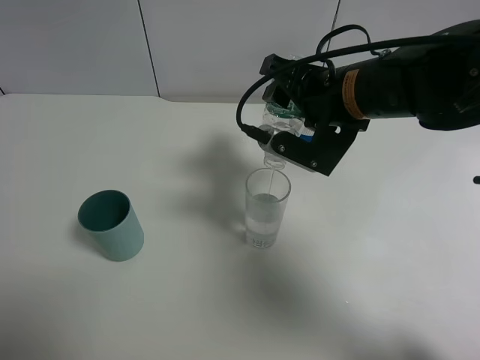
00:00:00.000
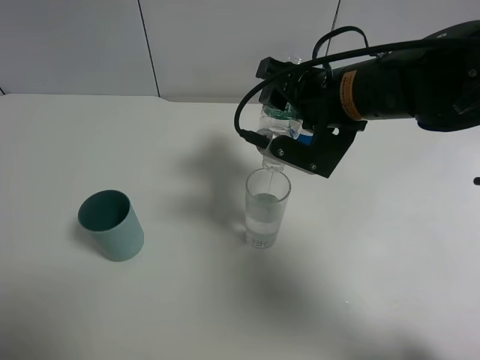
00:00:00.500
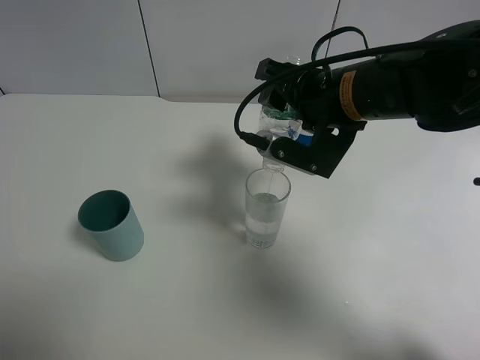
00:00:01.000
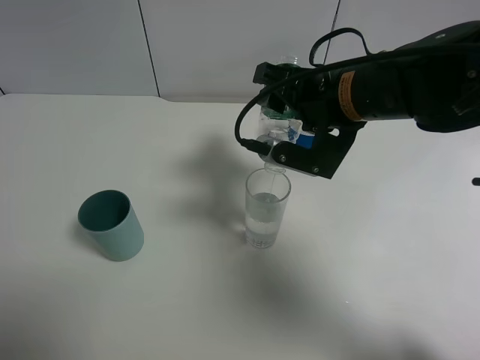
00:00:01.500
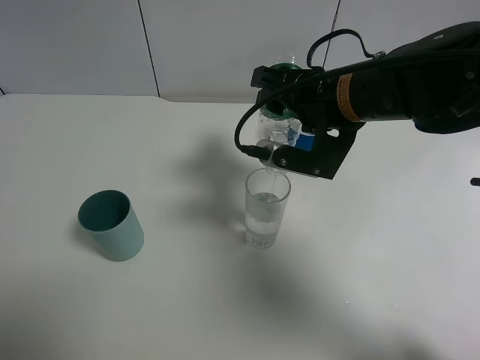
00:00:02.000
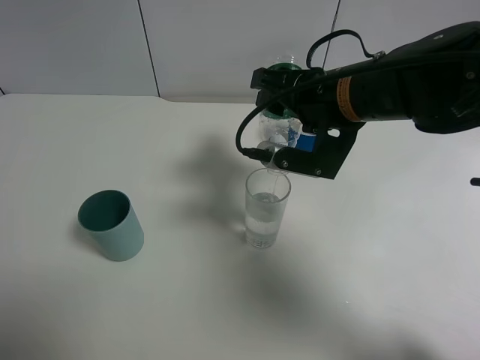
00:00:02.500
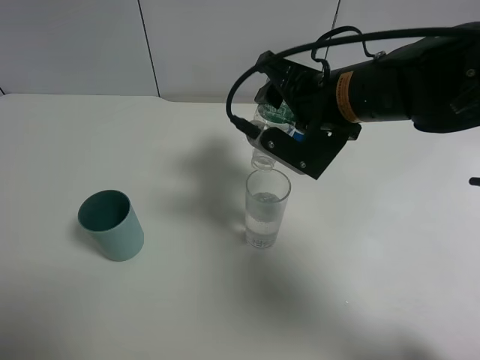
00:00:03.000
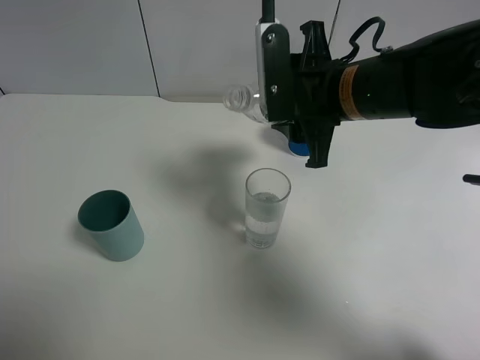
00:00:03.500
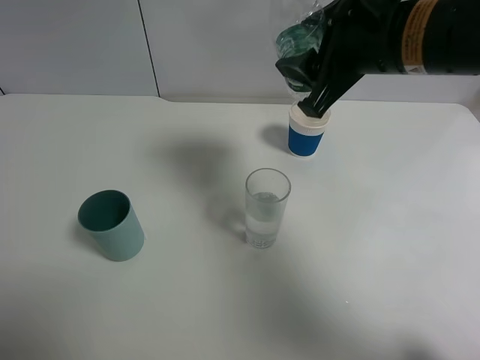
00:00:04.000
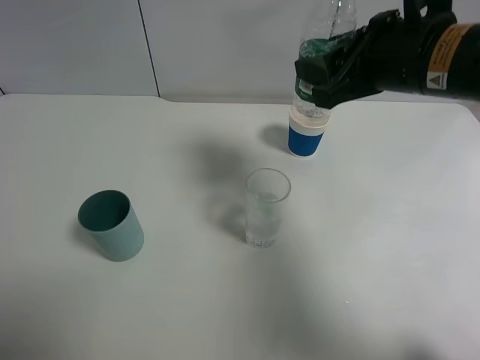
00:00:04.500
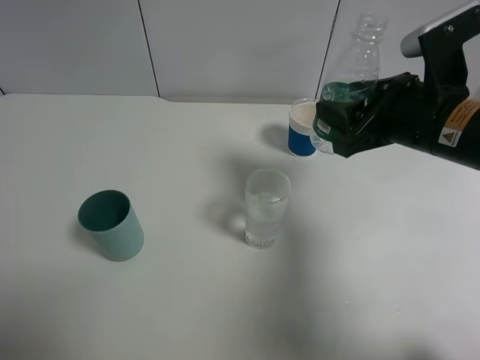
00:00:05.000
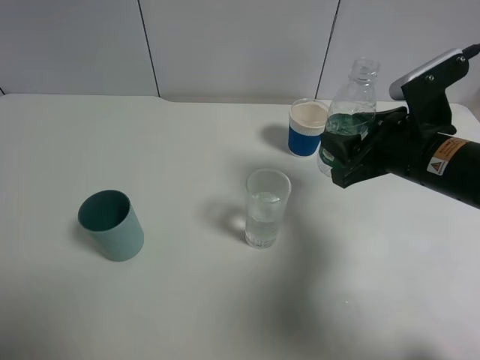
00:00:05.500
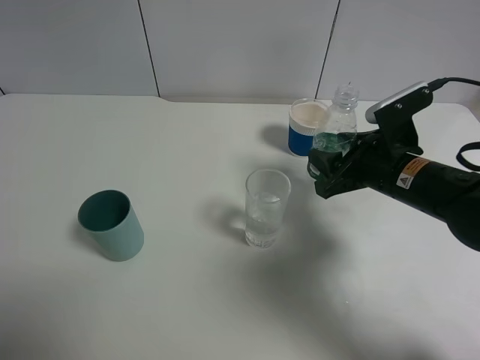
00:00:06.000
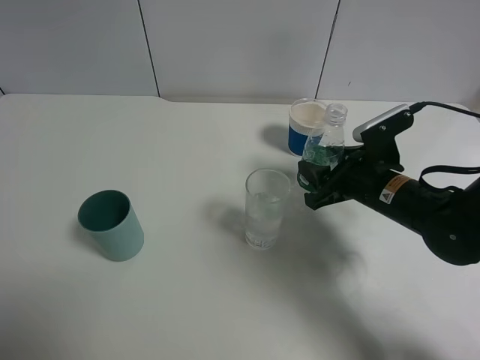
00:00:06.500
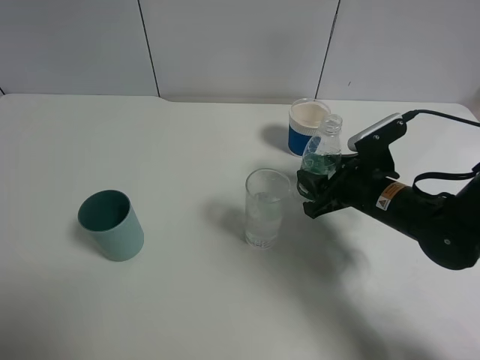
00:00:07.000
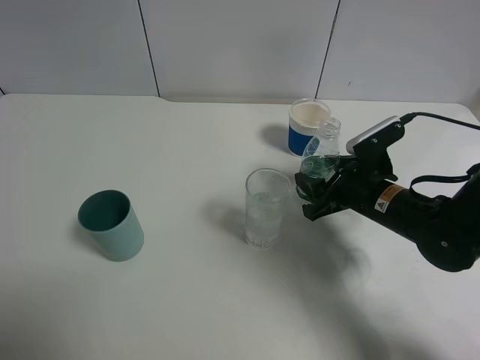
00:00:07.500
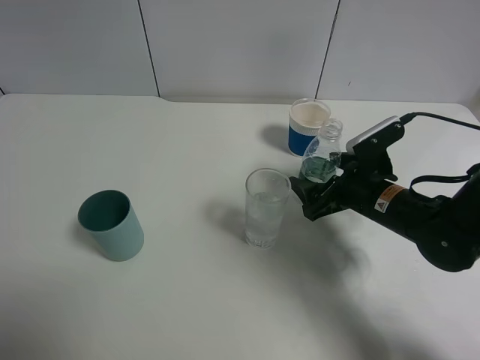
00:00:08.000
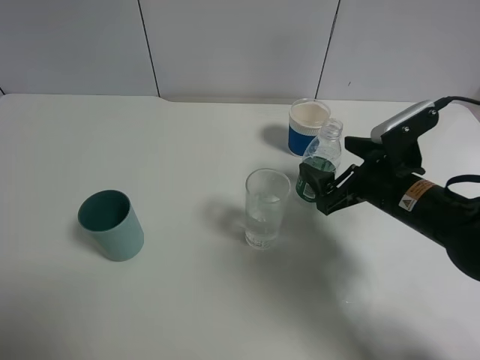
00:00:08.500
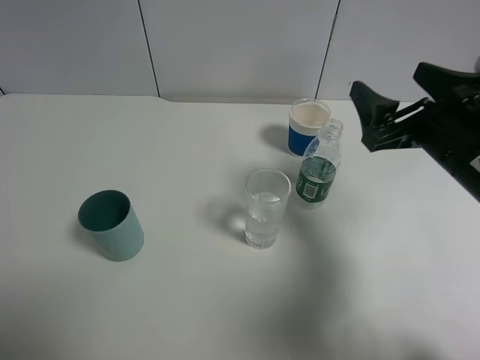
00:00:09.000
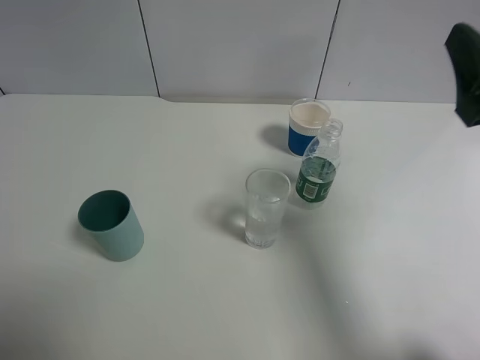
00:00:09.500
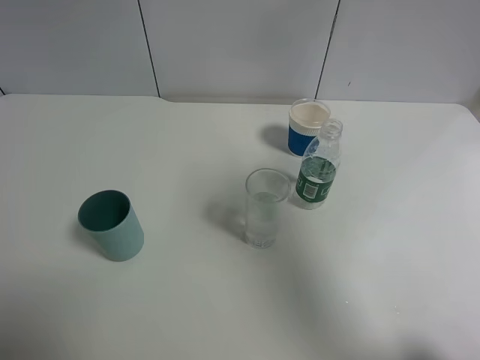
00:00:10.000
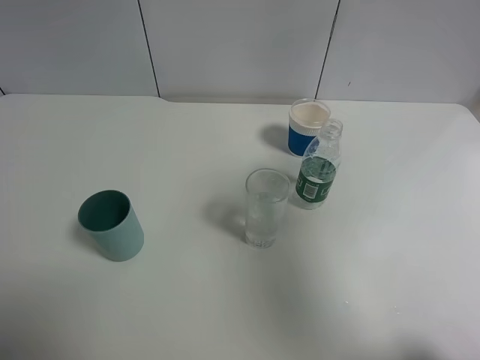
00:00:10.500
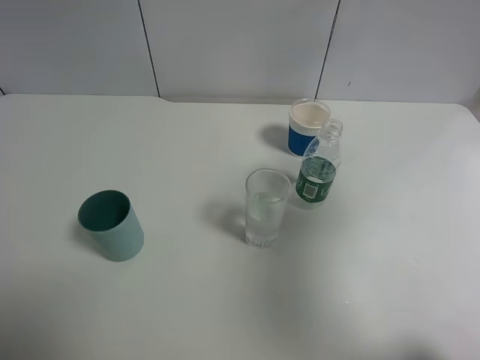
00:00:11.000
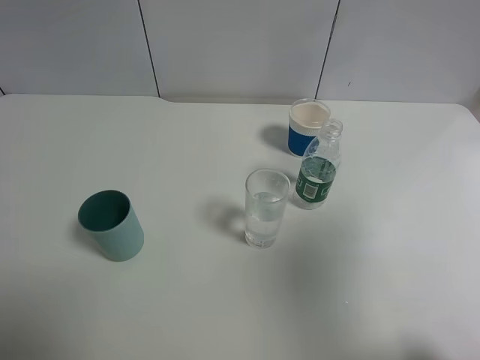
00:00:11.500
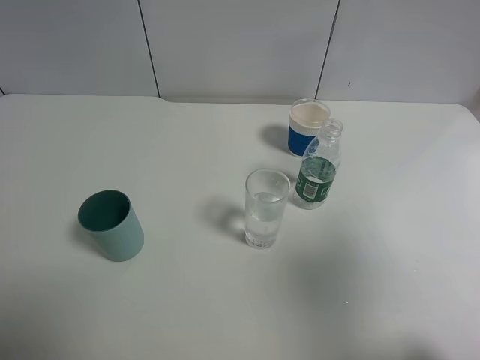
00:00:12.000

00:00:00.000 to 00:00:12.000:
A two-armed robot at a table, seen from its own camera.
Task of the whole recording: use a gripper to hold the bottle of the drink and pour it into a random cup.
Step, 00:00:00.000 to 00:00:03.500: Pour the mineral water into the glass with the right gripper.
Step, 00:00:04.000 to 00:00:09.000: Place the mineral water bottle on the table with the right gripper.
00:00:00.000 to 00:00:02.000: The grippers move only a little.
00:00:02.000 to 00:00:04.000: The right gripper heads upward, covering roughly 5 cm.
00:00:04.000 to 00:00:06.000: The right gripper heads downward, covering roughly 15 cm.
00:00:06.000 to 00:00:08.000: The right gripper opens.
00:00:08.000 to 00:00:10.000: The right gripper moves upward and backward, about 30 cm.
00:00:10.000 to 00:00:12.000: The right gripper moves backward and to the right, about 10 cm.

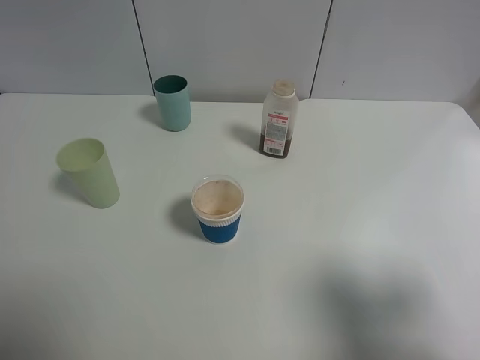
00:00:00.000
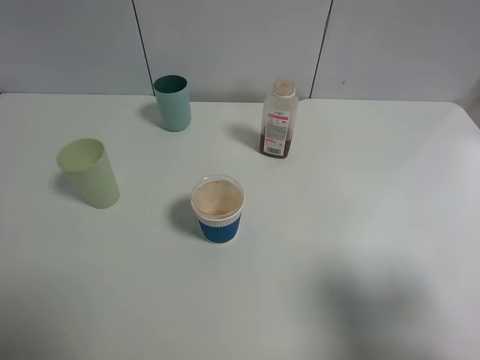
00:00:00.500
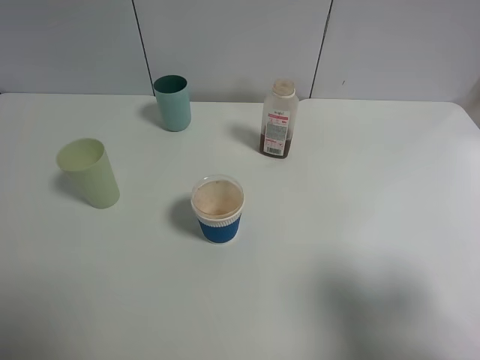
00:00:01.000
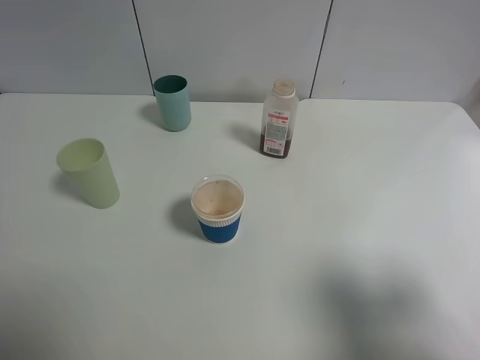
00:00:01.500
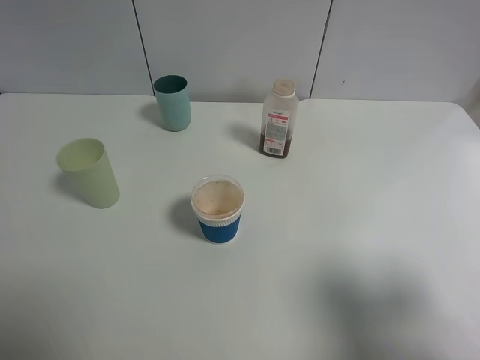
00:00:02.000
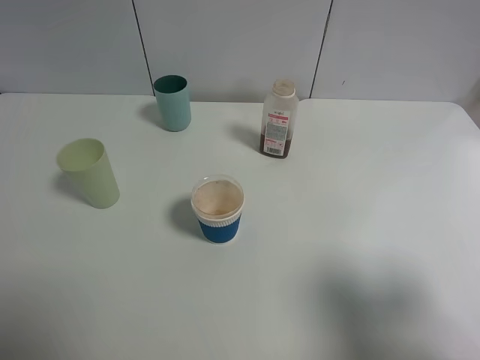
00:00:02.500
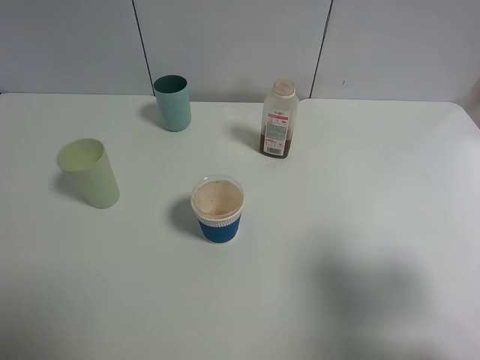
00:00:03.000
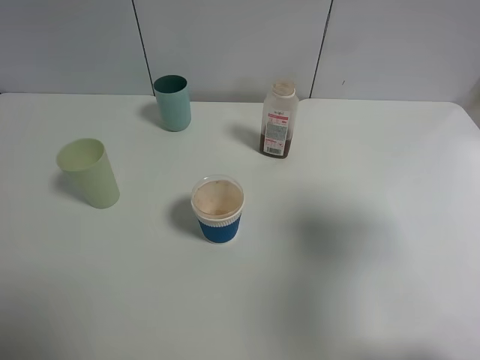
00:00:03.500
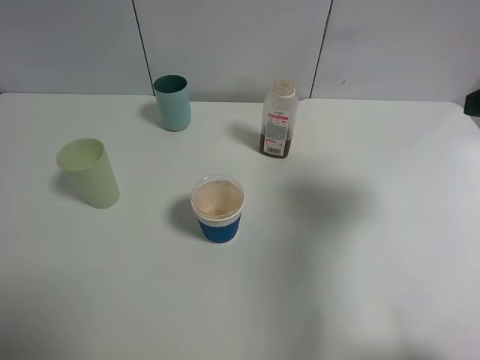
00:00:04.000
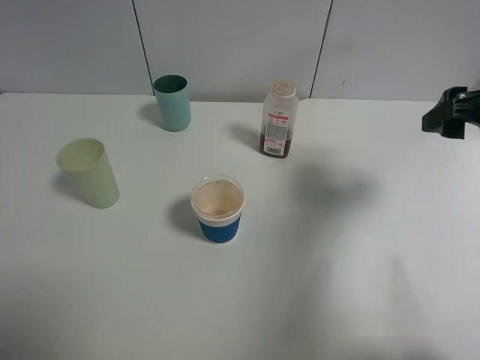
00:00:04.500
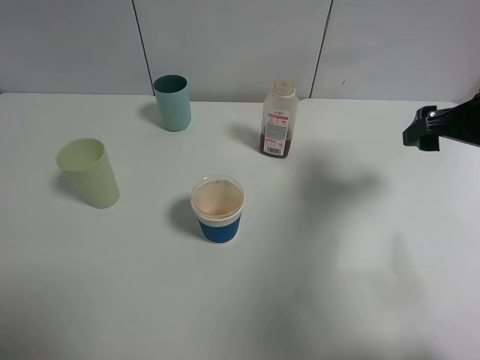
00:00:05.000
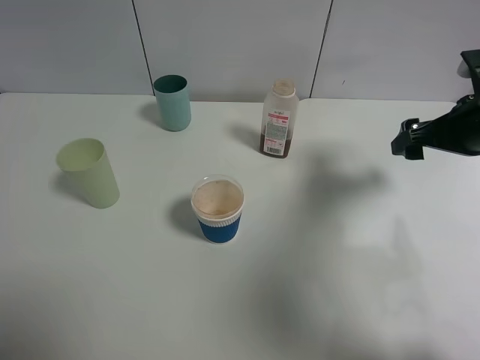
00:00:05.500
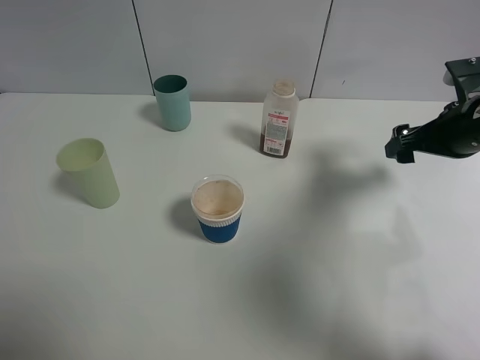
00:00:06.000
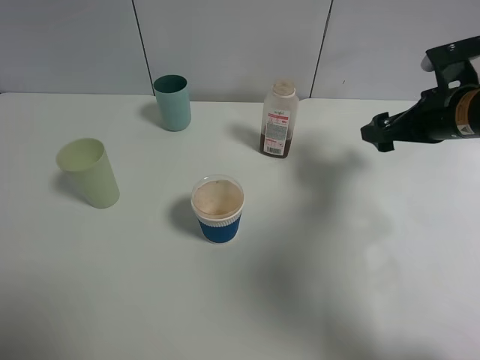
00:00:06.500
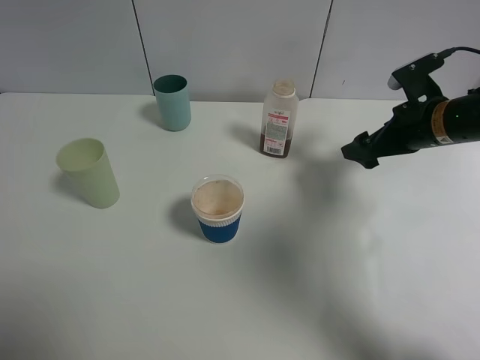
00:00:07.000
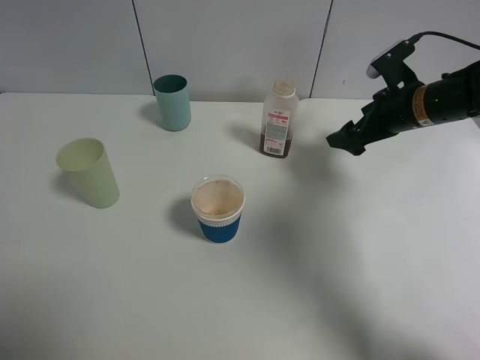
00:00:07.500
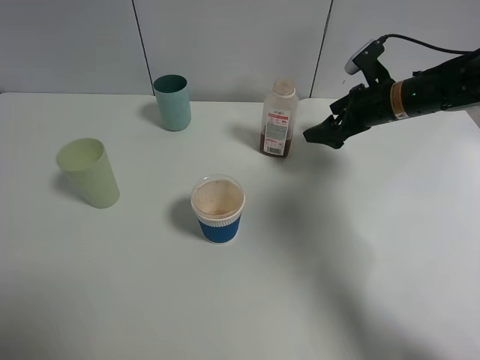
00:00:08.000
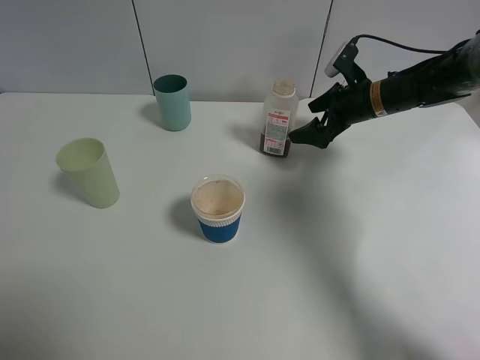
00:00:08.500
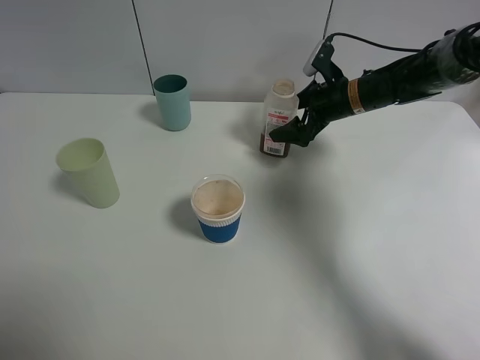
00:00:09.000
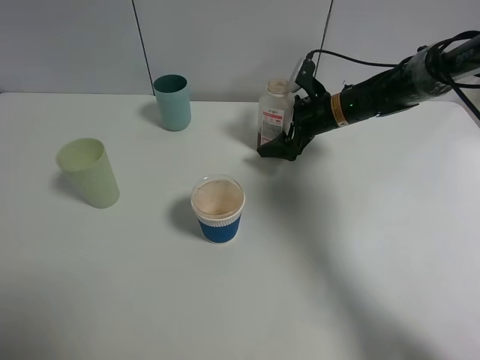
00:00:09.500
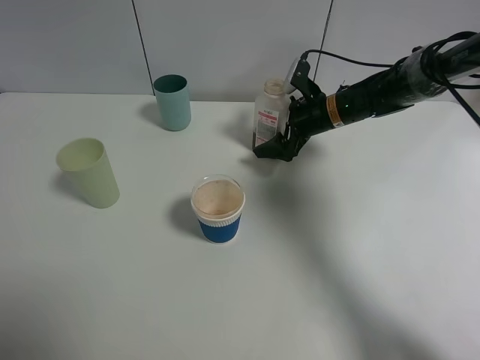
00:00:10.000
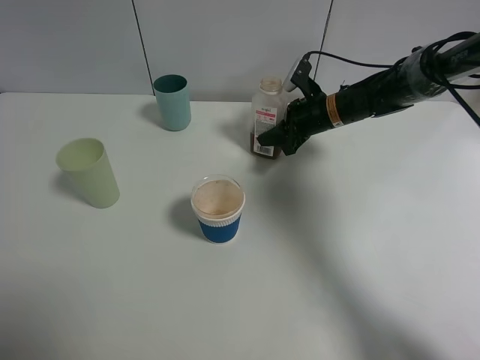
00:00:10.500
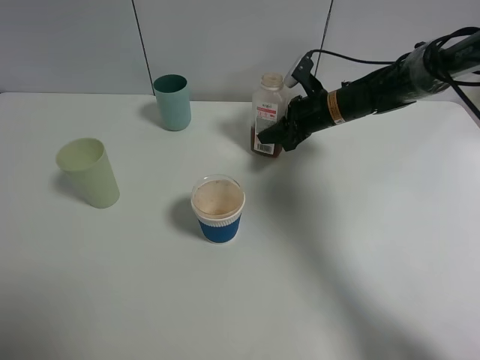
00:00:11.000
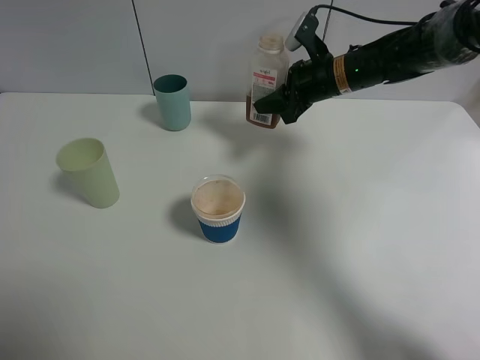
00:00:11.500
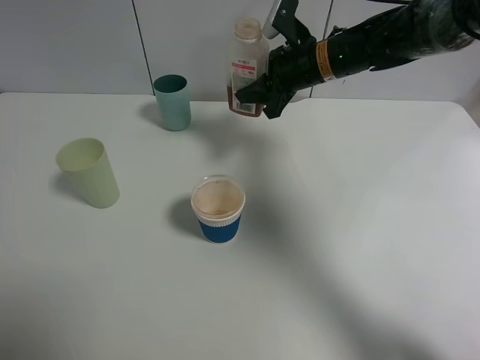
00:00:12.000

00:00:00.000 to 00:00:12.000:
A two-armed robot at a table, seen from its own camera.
Task of the whole recording: use a gripper to hold the bottle of the drink and pour it into a random cup.
Step, 00:00:00.000 to 00:00:10.000: Grasp the cranberry juice bottle with the right gripper.
00:00:00.000 to 00:00:02.000: Neither gripper changes place.
00:00:02.000 to 00:00:04.000: The right gripper goes some 15 cm forward.
00:00:04.000 to 00:00:06.000: The right gripper heads downward and forward, covering some 15 cm.
00:00:06.000 to 00:00:08.000: The right gripper is displaced forward and to the left by approximately 10 cm.
00:00:08.000 to 00:00:10.000: The right gripper moves to the left, some 10 cm.
00:00:10.000 to 00:00:12.000: The right gripper shifts roughly 10 cm upward, and closes up.

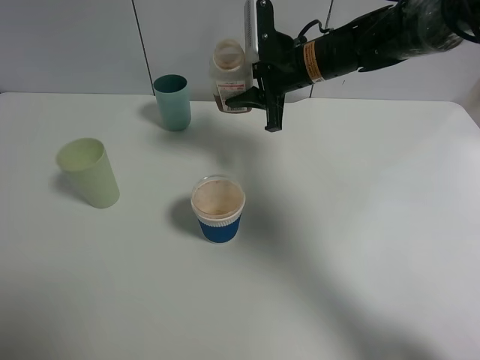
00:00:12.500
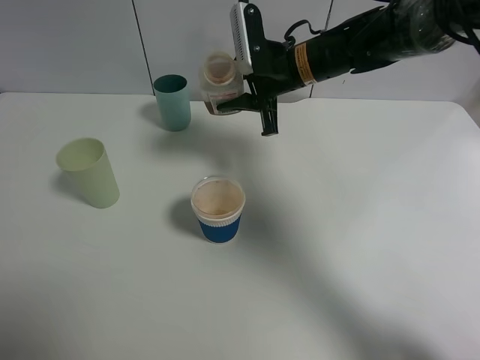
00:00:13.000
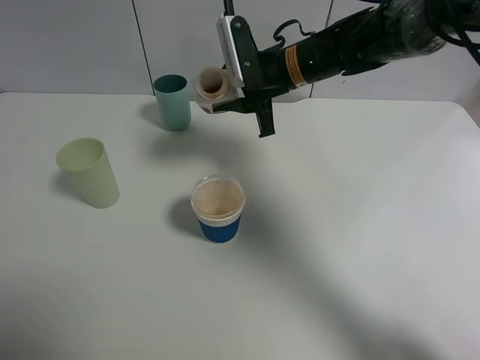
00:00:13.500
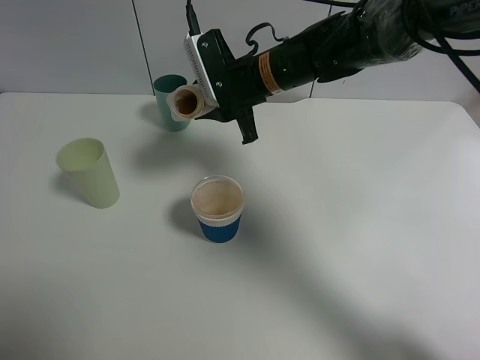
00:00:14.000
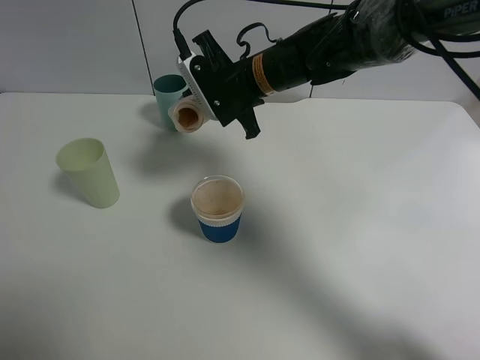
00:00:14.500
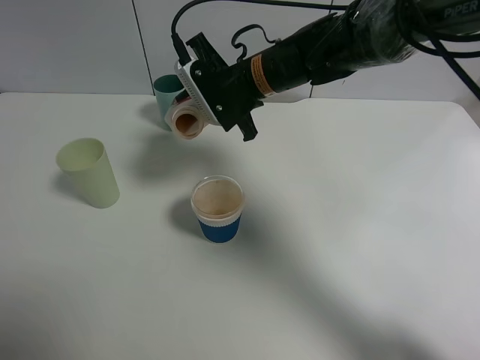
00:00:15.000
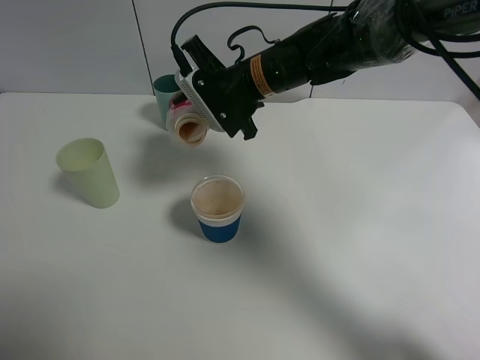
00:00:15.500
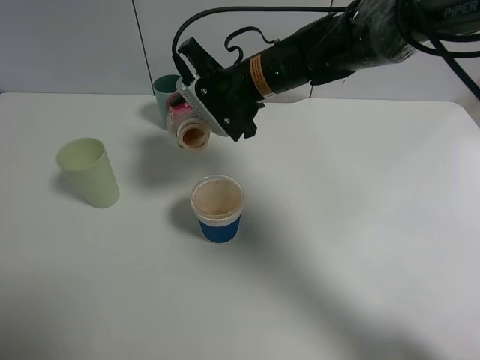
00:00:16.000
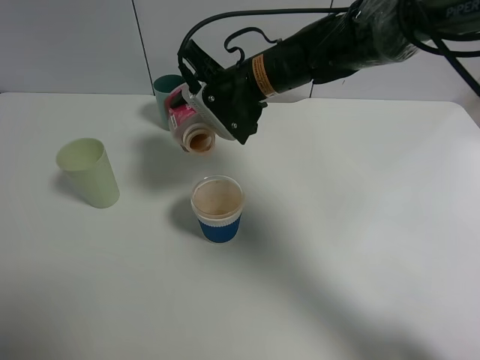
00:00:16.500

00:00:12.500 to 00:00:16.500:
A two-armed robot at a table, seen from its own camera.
Task of the whole recording: use a gripper to hold the bottle of the drink and pour it into a random cup.
00:00:12.500 to 00:00:14.500: The right gripper shifts approximately 5 cm to the left.
